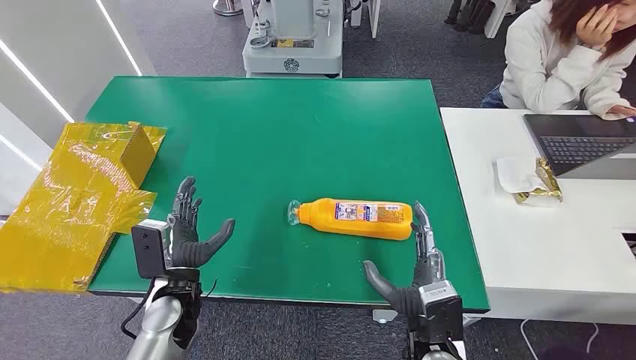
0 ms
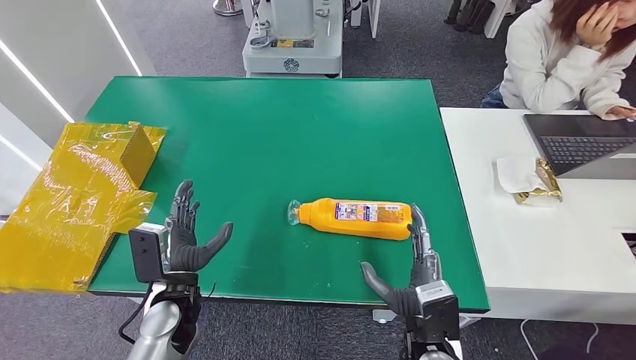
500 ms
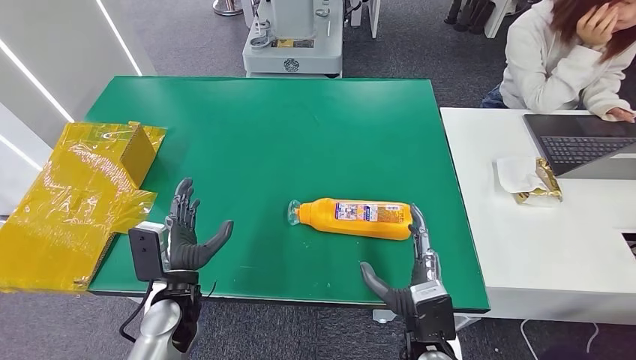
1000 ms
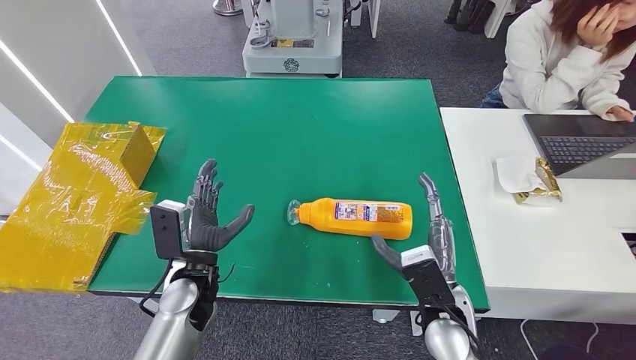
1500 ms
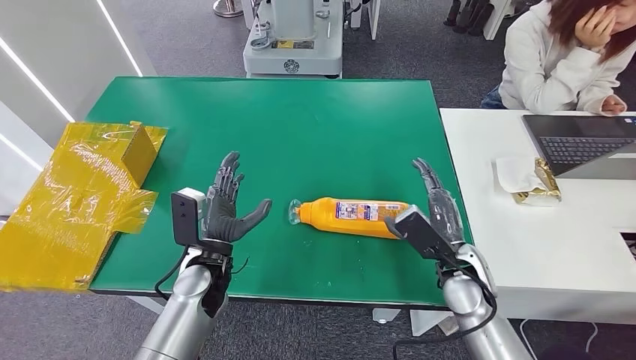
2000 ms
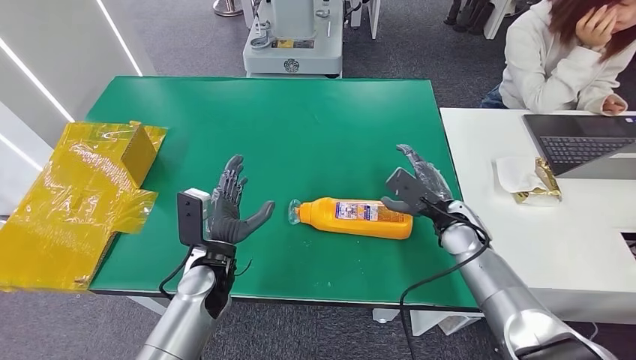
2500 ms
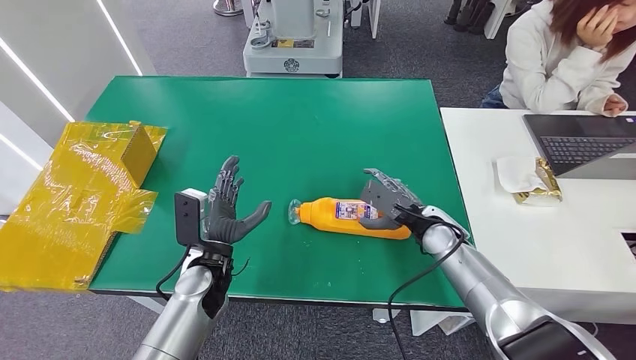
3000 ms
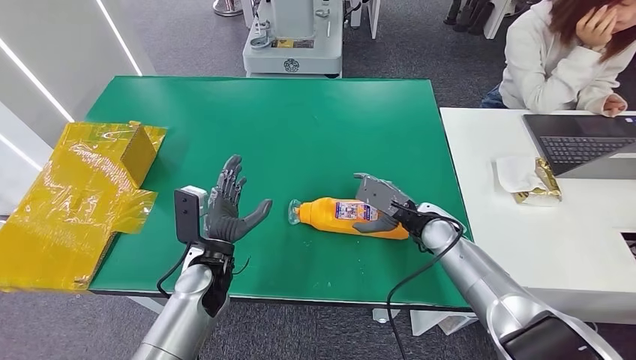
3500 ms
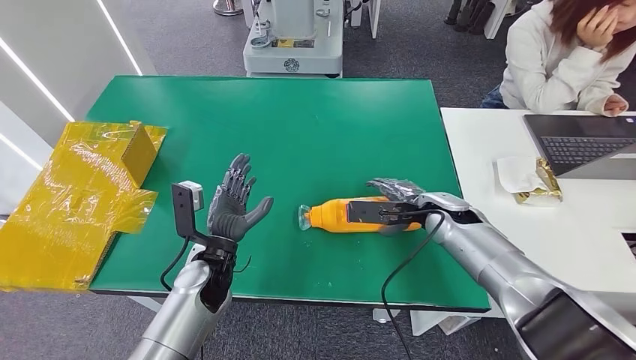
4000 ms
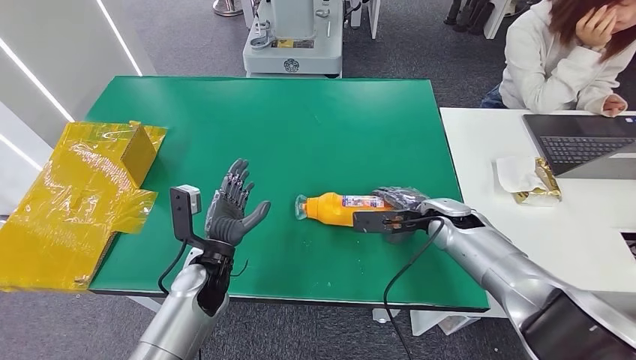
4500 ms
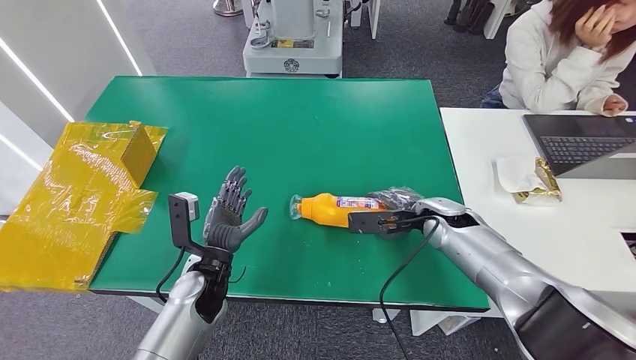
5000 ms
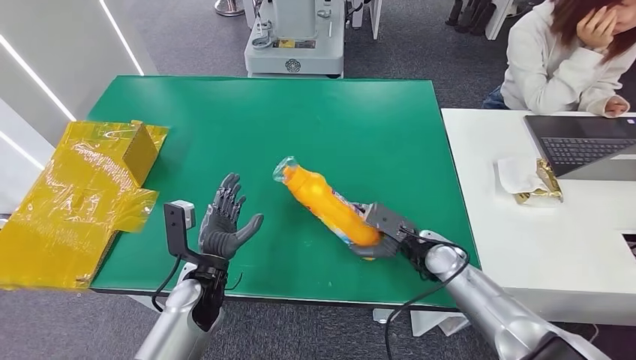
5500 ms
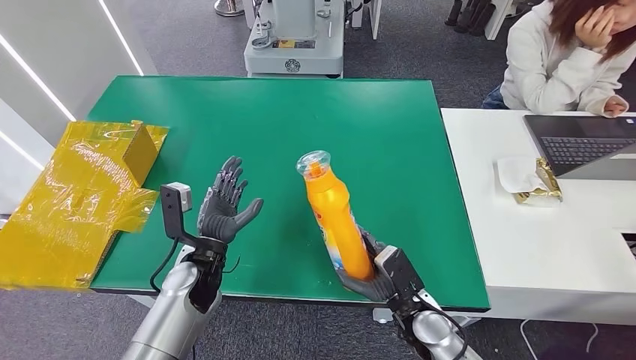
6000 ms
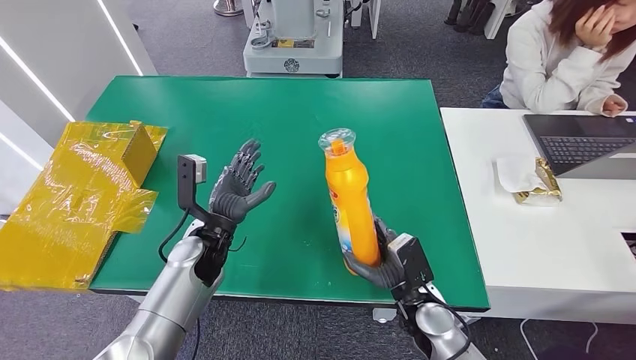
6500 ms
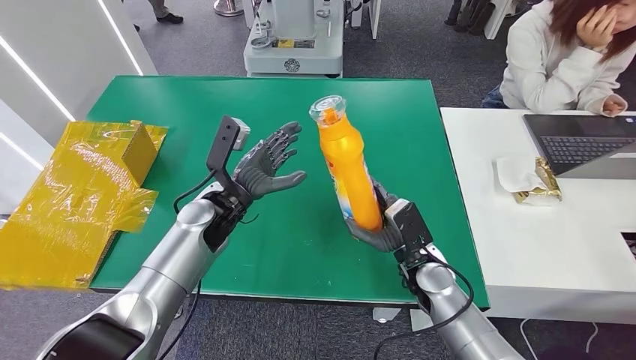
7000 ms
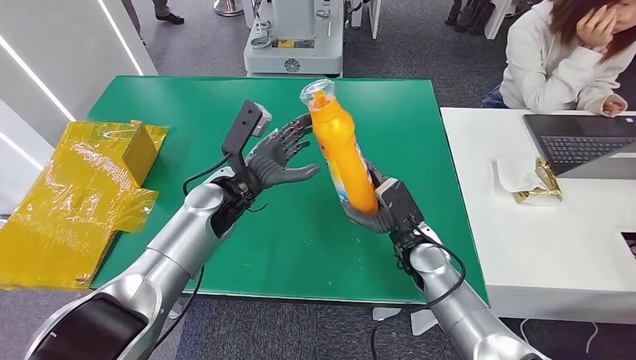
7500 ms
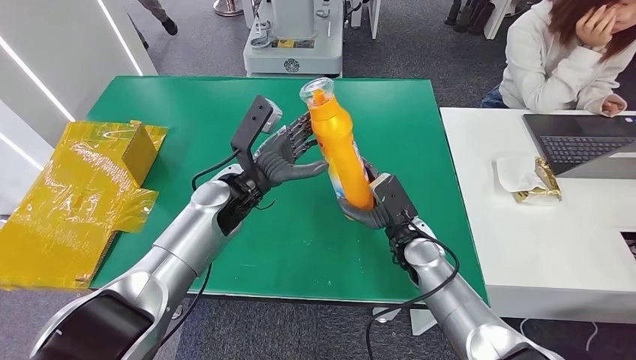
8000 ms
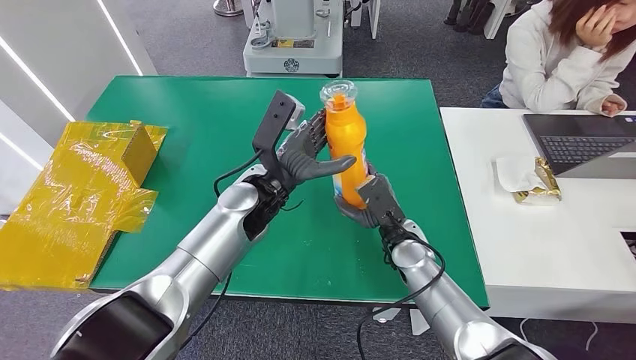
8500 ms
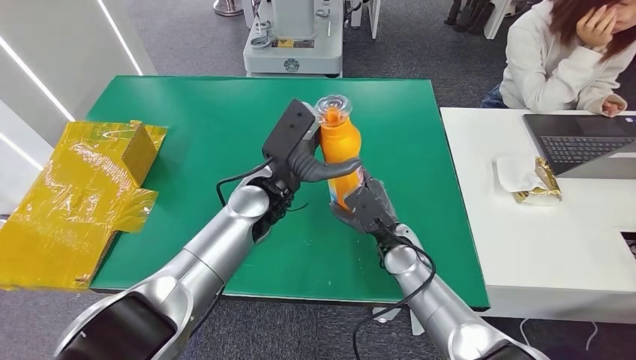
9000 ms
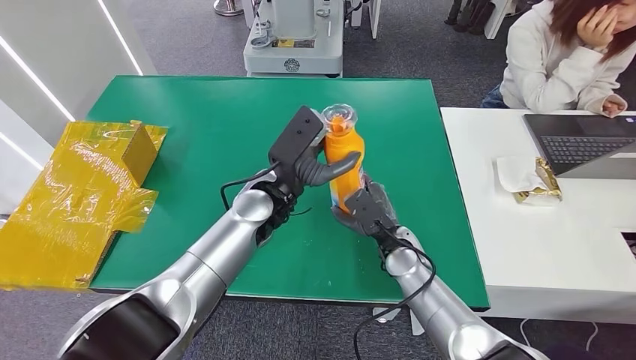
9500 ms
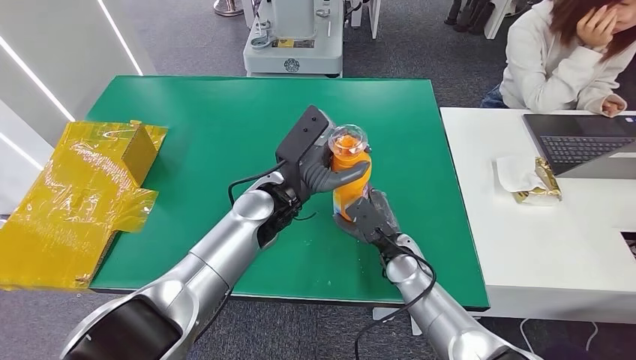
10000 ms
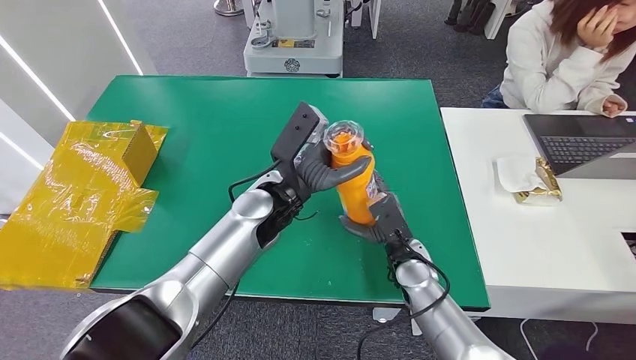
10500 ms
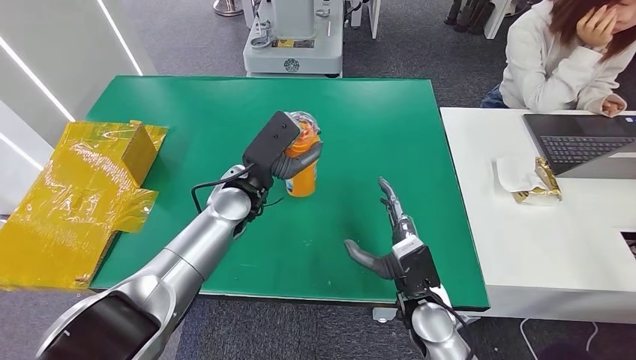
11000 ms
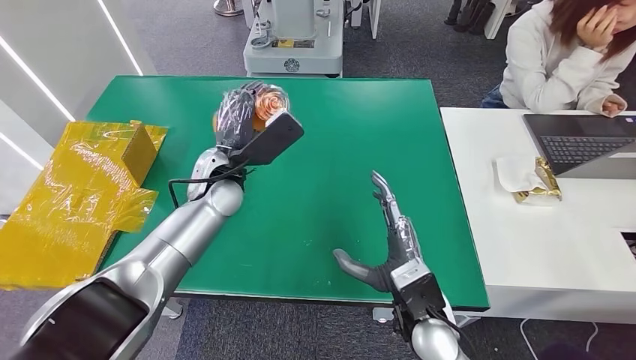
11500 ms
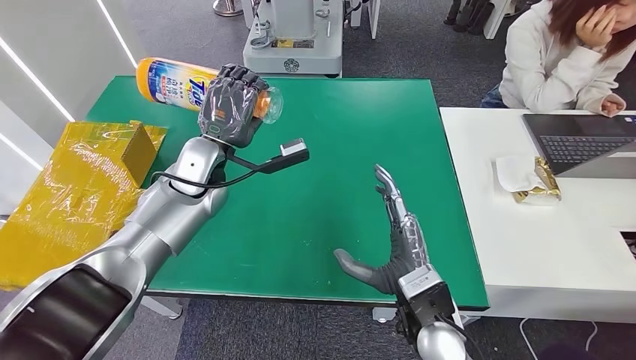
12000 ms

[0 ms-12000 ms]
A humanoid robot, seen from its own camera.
Step, 0 ms to 6000 ms: Pick up the bottle from the table.
2000 ms to 4000 ms: The right hand heads forward, covering roughly 10 cm.
4000 ms to 6000 ms: The right hand shifts some 20 cm backward and downward.
8000 ms to 10000 ms: The left hand moves to the right, about 5 cm.

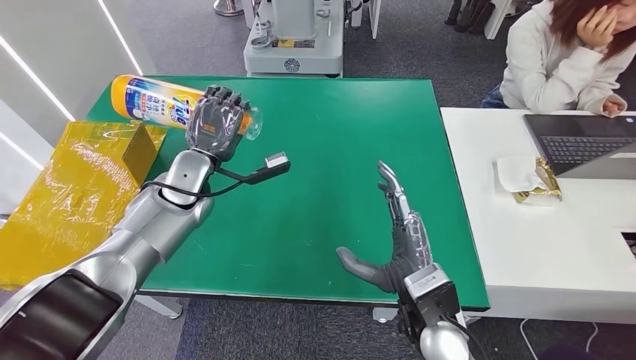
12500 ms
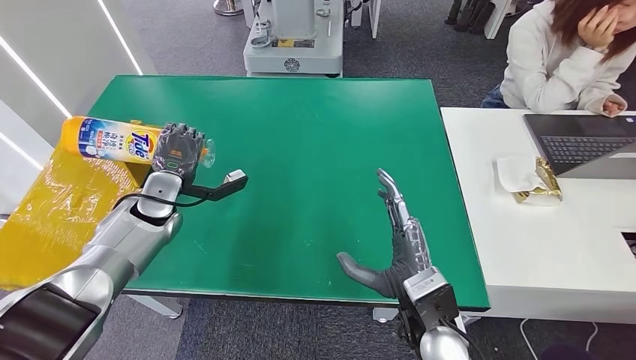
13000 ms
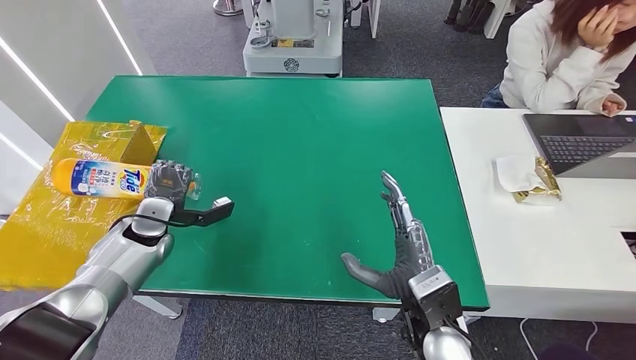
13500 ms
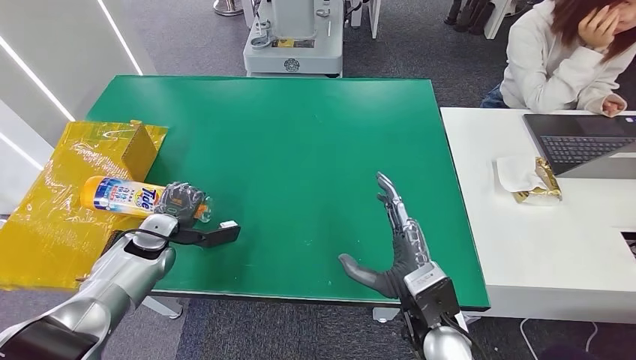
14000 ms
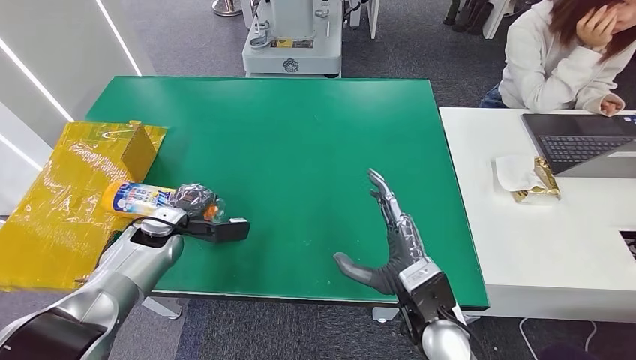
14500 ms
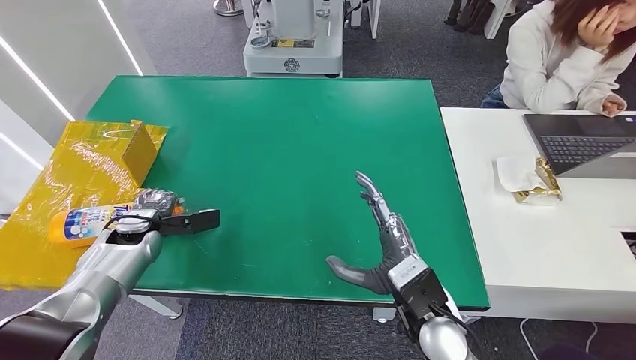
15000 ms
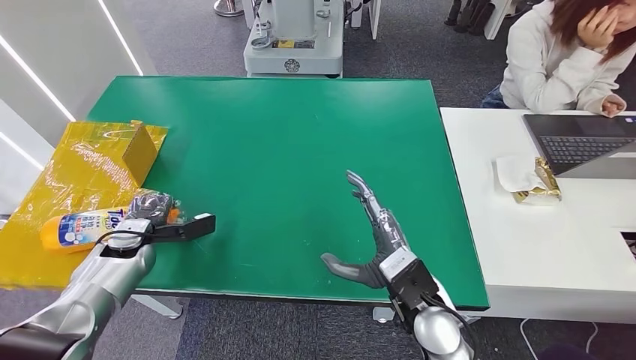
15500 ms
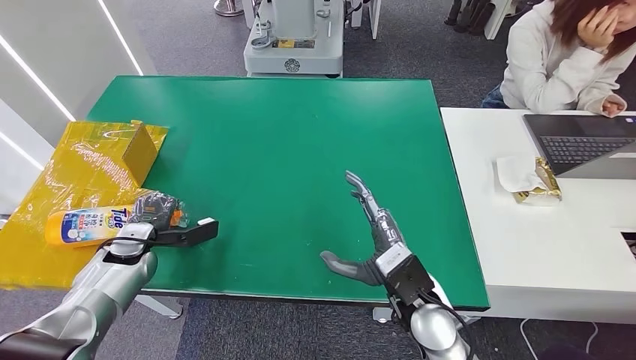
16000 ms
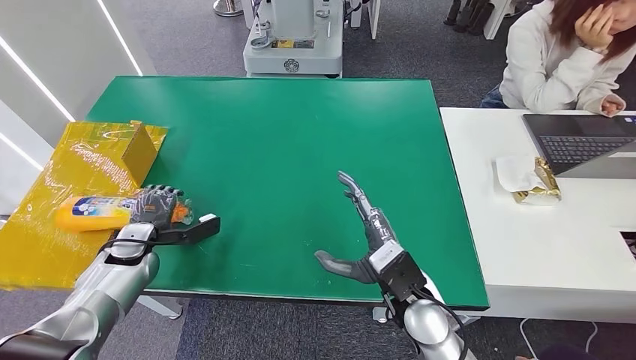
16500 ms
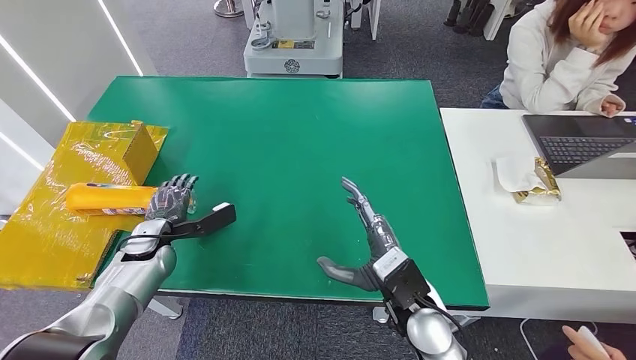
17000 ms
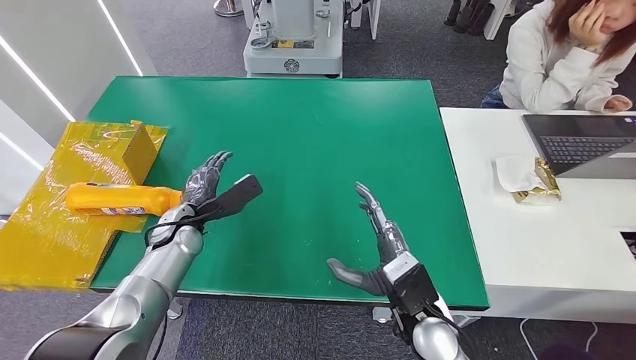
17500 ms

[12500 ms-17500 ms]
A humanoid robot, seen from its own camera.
Step, 12500 ms to 17500 ms: Turn the bottle to the front side.
12500 ms to 15000 ms: The left hand goes roughly 20 cm to the left, downward and backward.
15000 ms to 17500 ms: The left hand heads to the right, covering roughly 10 cm.

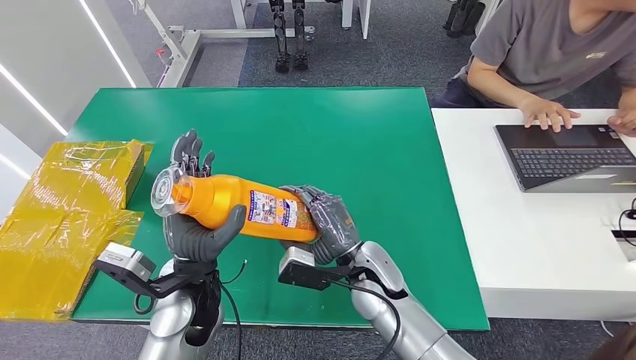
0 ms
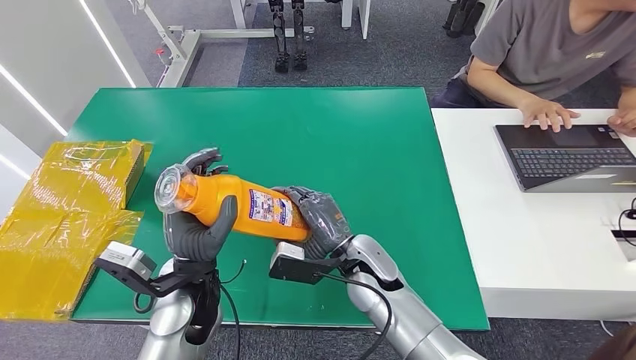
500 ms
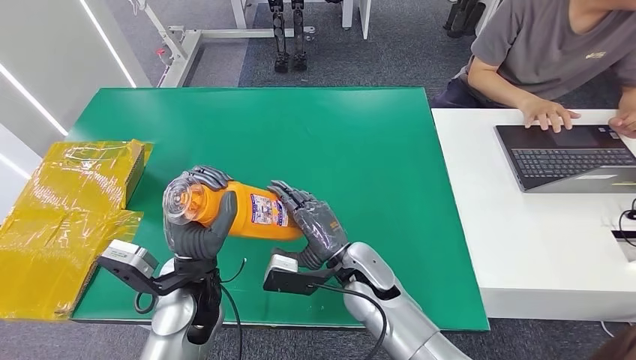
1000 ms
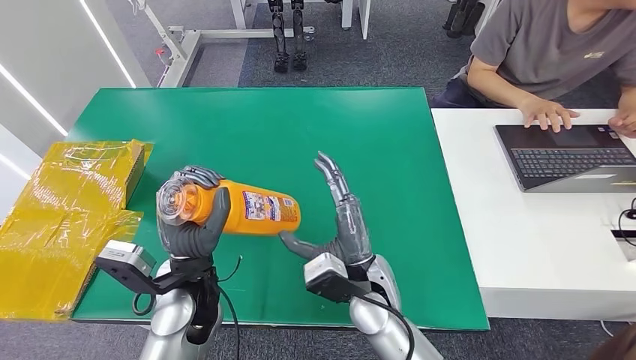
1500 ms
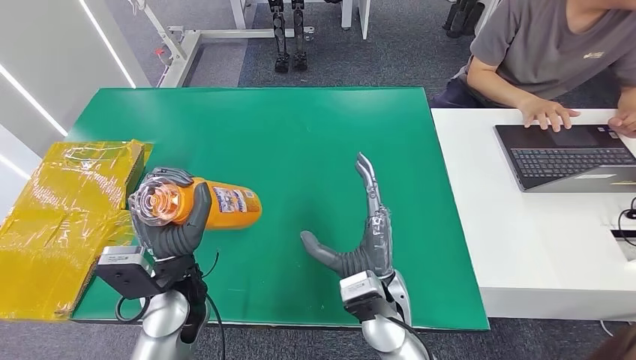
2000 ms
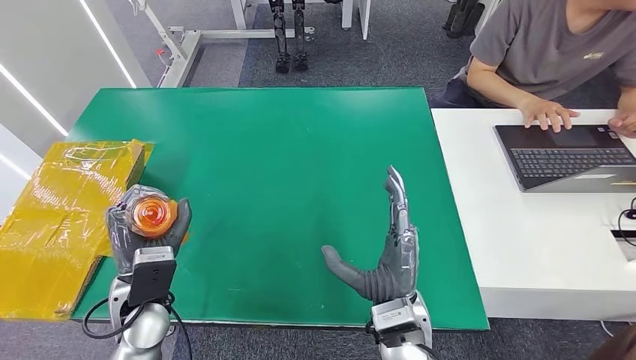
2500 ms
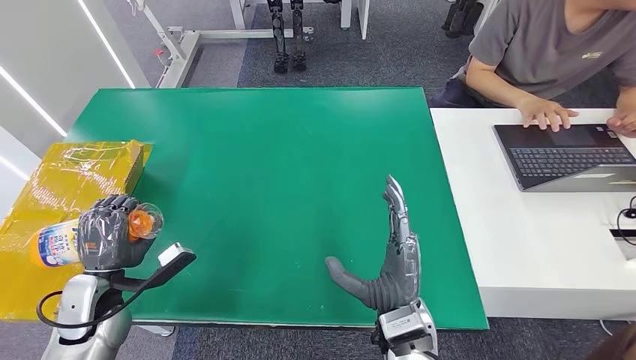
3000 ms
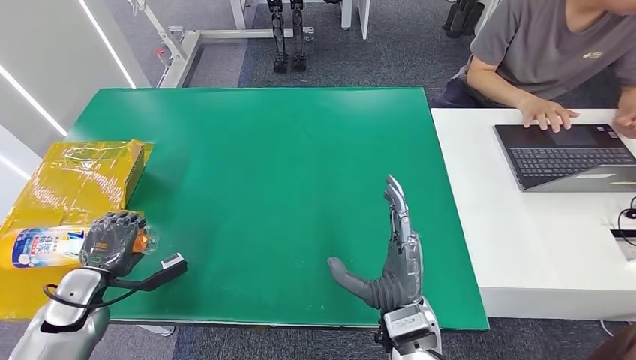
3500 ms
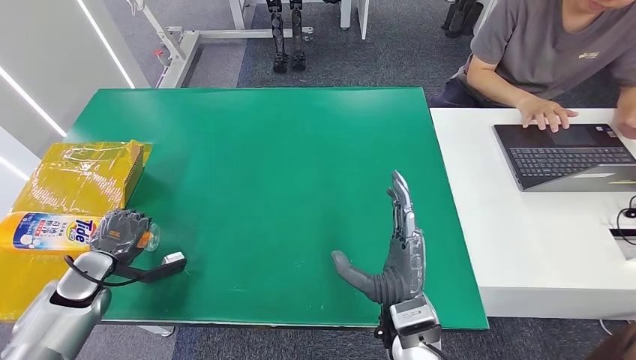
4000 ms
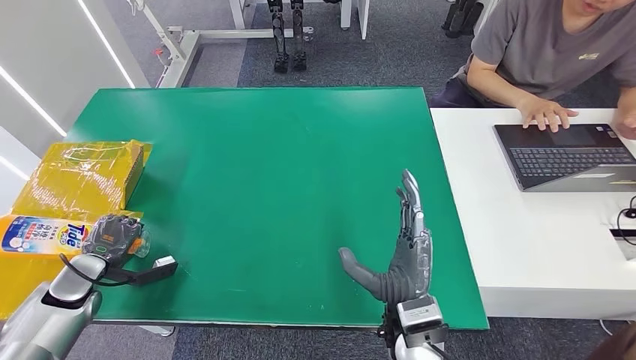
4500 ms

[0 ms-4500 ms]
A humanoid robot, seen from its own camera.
0 ms to 2000 ms: The right hand goes some 5 cm backward.
2000 ms to 4500 ms: The left hand heads to the left and downward, covering about 30 cm.
